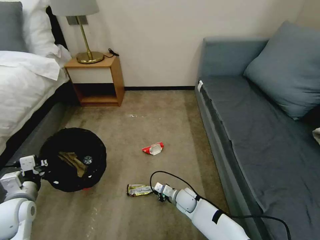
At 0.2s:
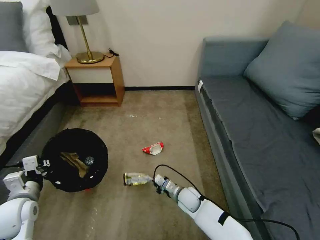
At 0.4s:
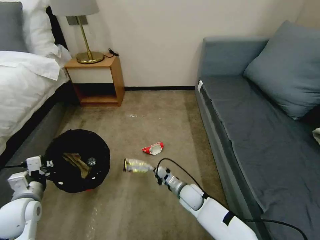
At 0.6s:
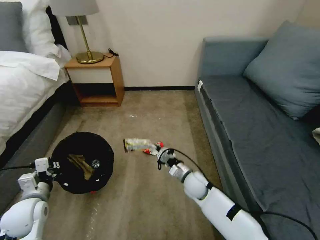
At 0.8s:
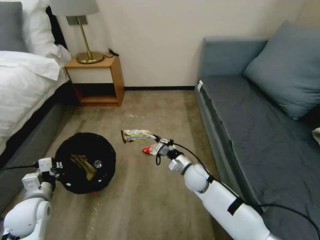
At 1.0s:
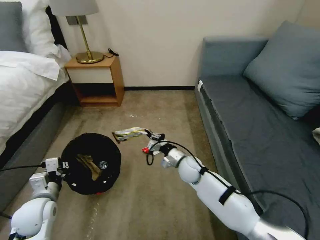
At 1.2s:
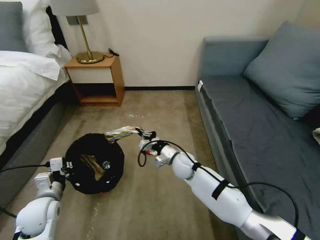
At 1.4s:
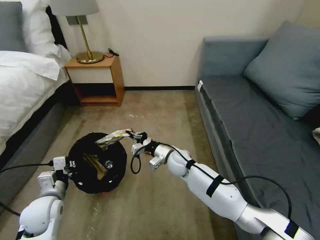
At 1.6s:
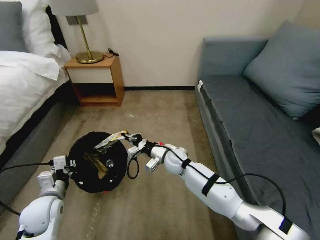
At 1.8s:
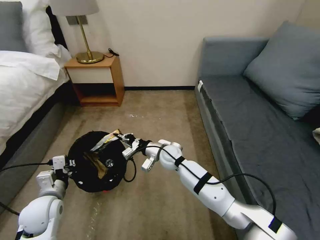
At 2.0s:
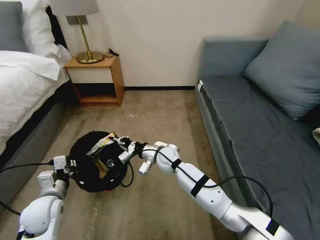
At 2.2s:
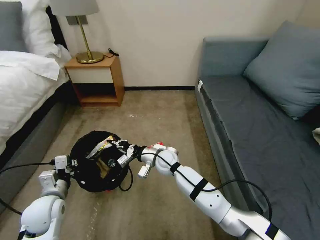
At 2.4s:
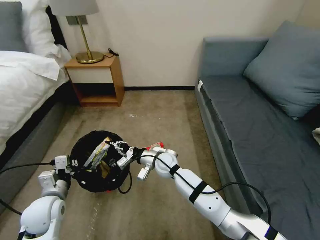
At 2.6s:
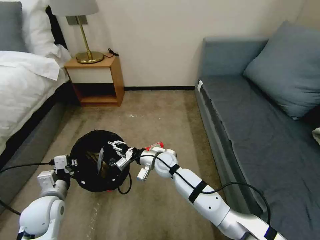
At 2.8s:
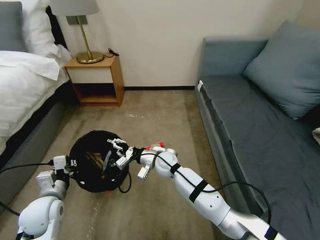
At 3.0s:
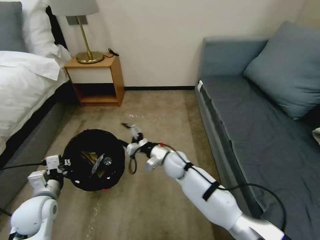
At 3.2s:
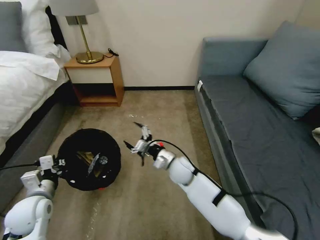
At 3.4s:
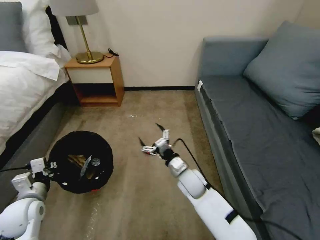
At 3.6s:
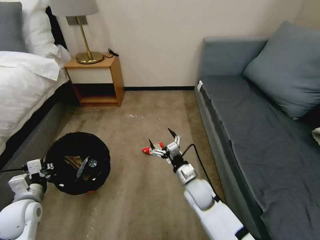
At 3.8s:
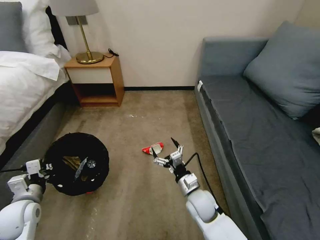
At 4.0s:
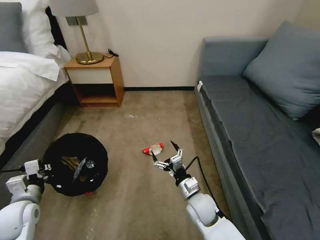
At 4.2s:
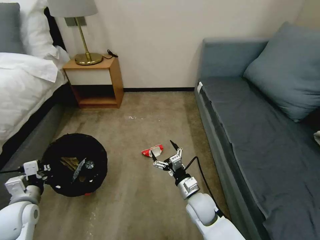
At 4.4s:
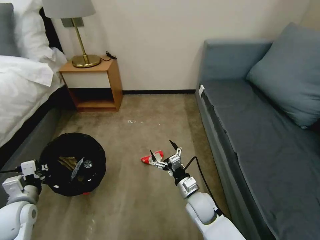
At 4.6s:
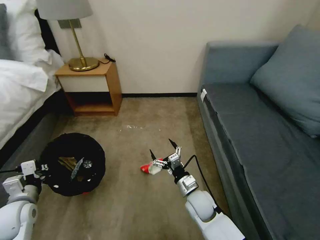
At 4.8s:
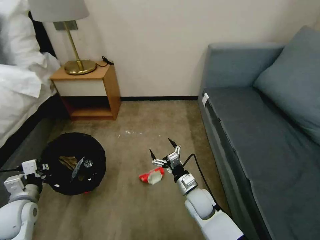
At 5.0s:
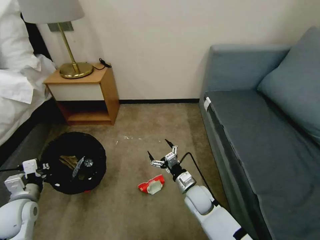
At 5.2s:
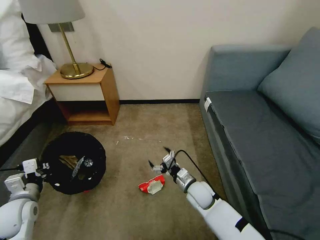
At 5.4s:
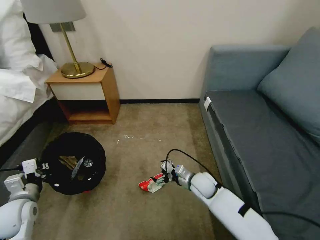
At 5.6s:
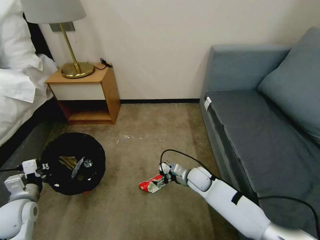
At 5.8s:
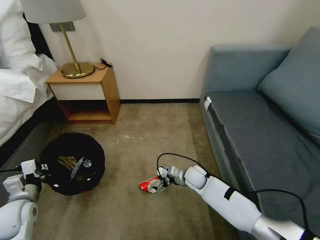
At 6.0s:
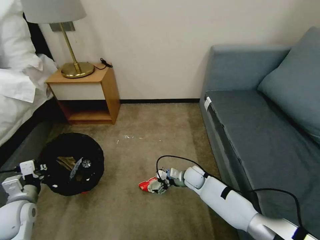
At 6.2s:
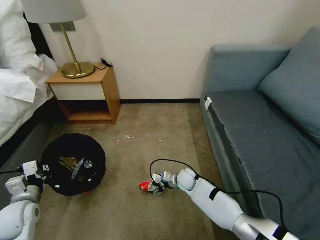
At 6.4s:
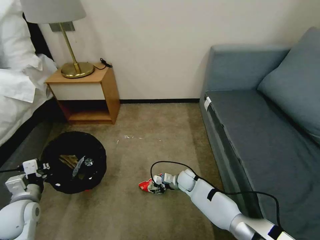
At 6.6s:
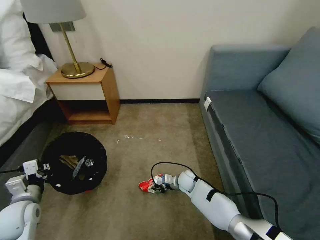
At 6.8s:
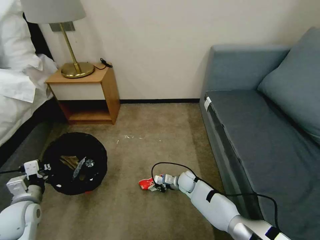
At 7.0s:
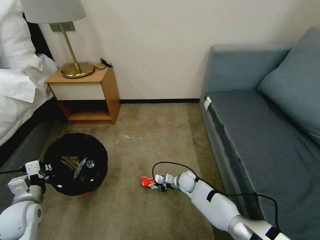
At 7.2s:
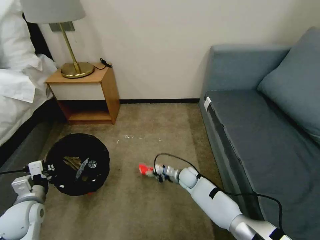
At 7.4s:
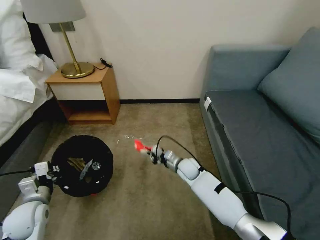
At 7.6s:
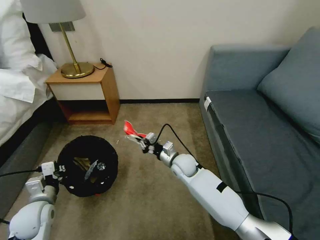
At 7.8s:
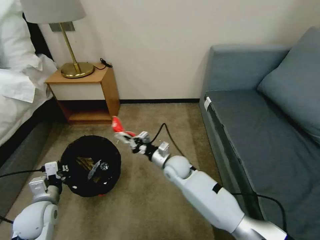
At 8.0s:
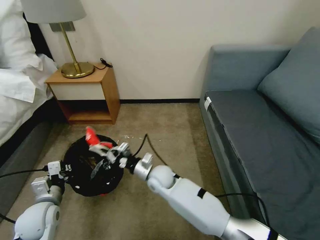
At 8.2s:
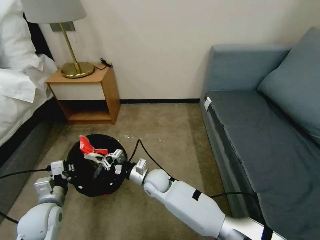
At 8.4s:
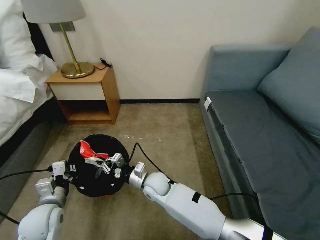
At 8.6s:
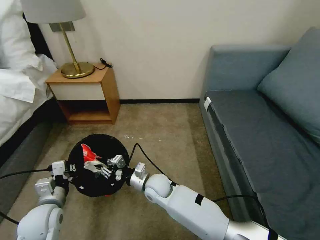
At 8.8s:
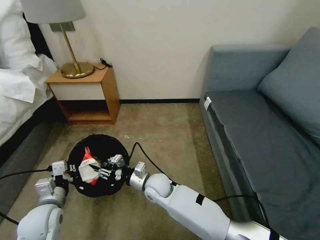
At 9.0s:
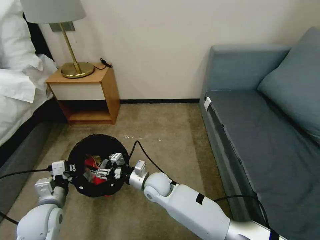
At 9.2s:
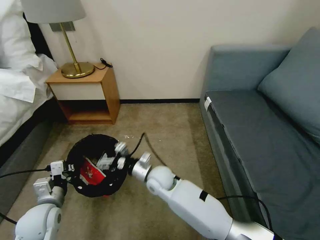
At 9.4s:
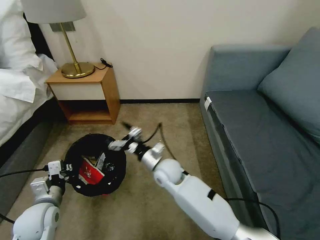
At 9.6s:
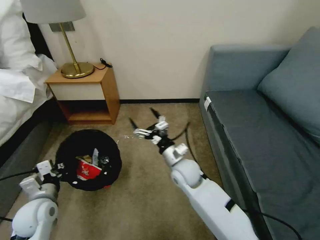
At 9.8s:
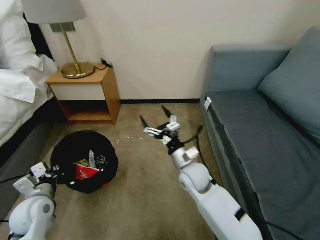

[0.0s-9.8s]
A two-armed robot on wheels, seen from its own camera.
Task of the whole recording: Pick up the trash bin, then pick up the garbage on the floor and place it into the trash bin.
0.0s to 1.4s: The left gripper heads to the right, covering roughly 5 cm. Meanwhile the right gripper is displaced upward and forward by about 20 cm.
1.4s to 2.8s: The right gripper opens.
2.8s to 4.2s: The right gripper goes some 20 cm backward, to the right and downward, and opens up; the left gripper shifts roughly 5 cm to the left.
4.2s to 5.6s: The right gripper travels forward by about 10 cm.
5.6s to 7.0s: The right gripper heads downward, covering roughly 10 cm, and closes up.
7.0s to 8.4s: The left gripper moves to the right, approximately 5 cm, while the right gripper heads to the left, upward and backward, covering about 20 cm.
8.4s to 9.8s: The right gripper moves to the right and upward, about 15 cm, and opens.

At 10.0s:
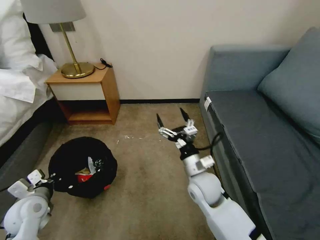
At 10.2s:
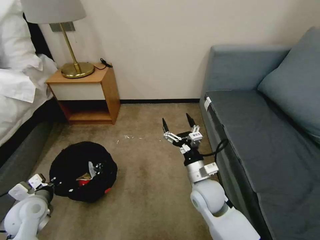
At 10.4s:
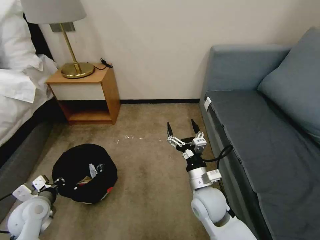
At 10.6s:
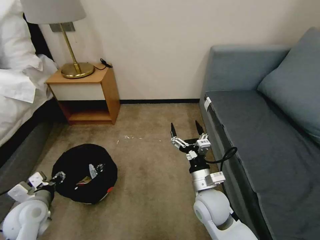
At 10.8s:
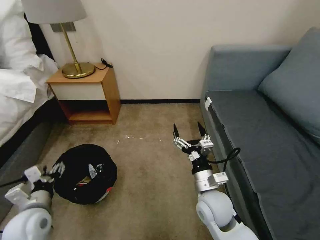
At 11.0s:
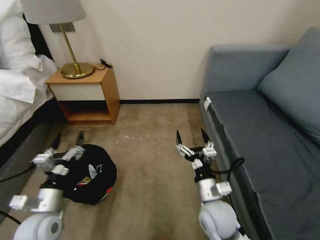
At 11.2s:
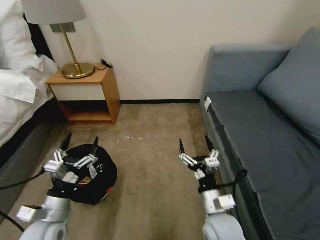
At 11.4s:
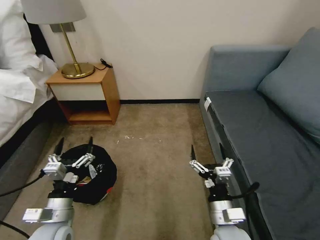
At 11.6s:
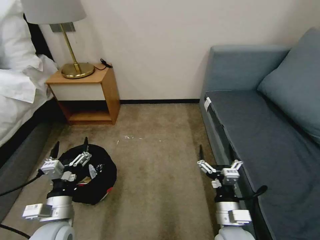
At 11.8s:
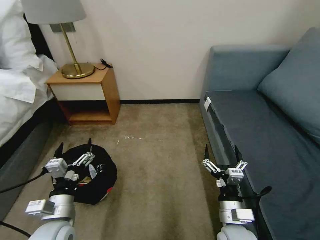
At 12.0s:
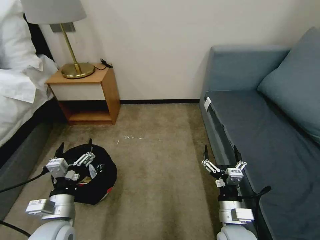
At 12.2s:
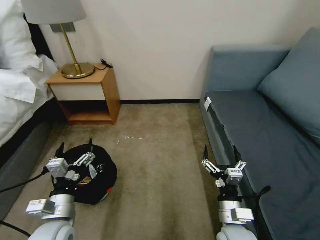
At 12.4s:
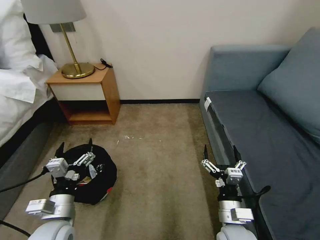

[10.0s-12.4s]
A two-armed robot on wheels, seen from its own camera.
Task of the whole recording: Pick up the trash bin, then pick up the garbage on the floor and place it into the trash bin.
10.0s to 11.2s: The left gripper goes approximately 10 cm to the right and backward, and opens; the right gripper moves backward, some 10 cm.

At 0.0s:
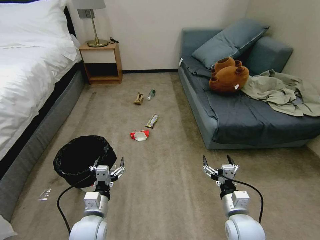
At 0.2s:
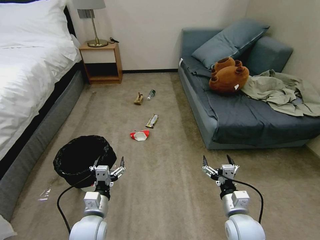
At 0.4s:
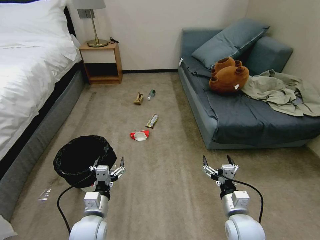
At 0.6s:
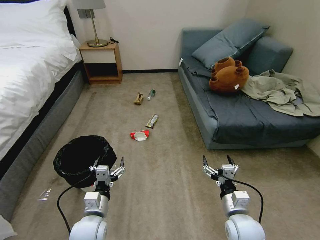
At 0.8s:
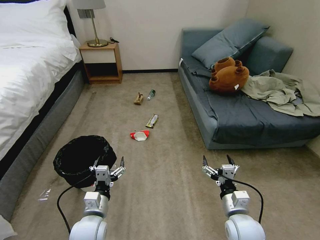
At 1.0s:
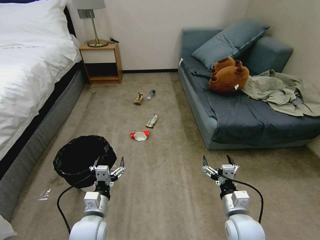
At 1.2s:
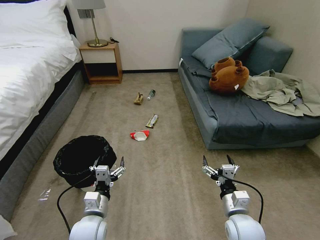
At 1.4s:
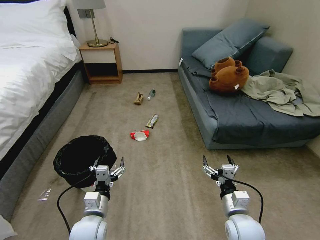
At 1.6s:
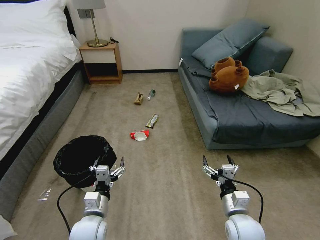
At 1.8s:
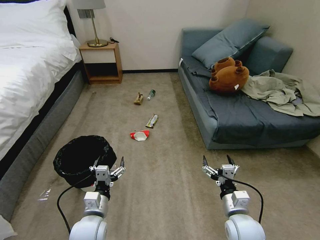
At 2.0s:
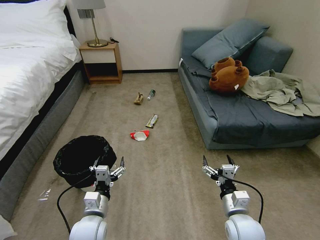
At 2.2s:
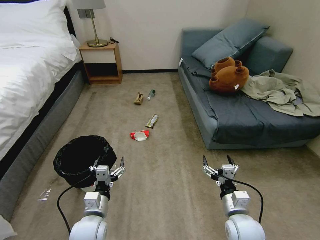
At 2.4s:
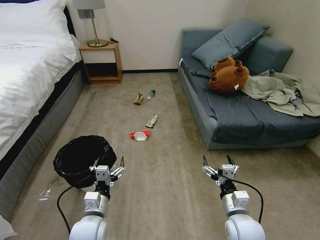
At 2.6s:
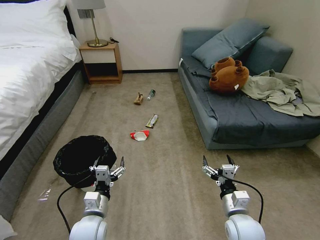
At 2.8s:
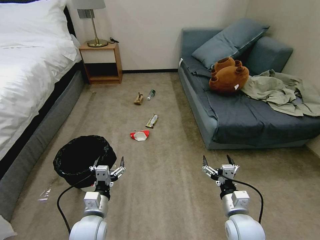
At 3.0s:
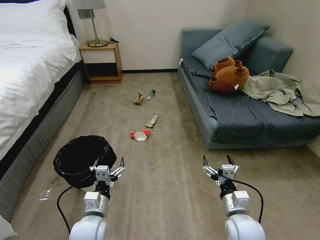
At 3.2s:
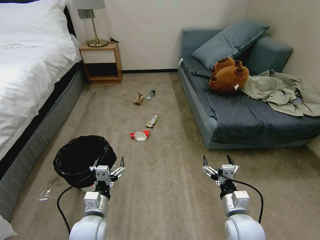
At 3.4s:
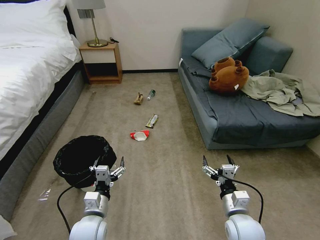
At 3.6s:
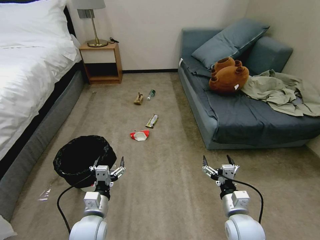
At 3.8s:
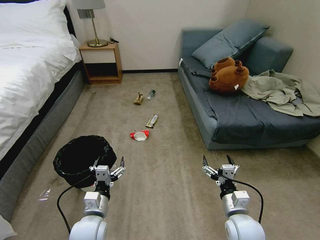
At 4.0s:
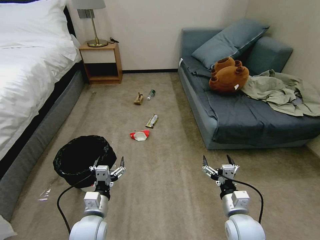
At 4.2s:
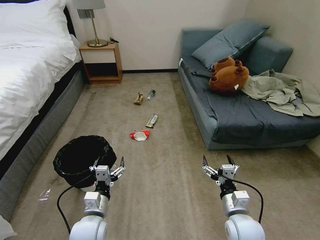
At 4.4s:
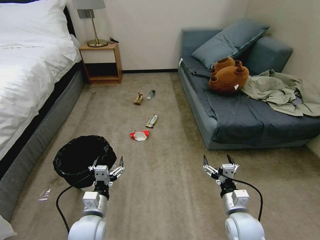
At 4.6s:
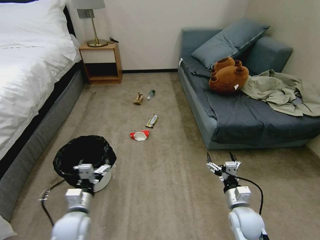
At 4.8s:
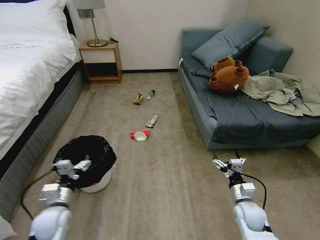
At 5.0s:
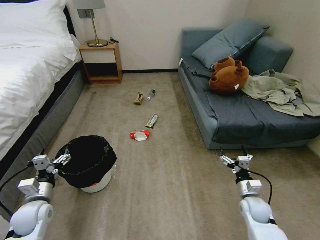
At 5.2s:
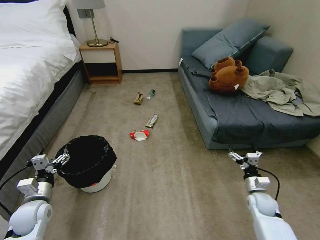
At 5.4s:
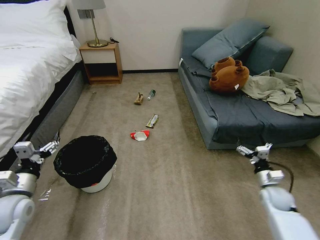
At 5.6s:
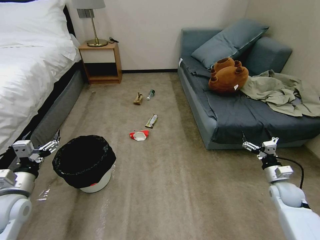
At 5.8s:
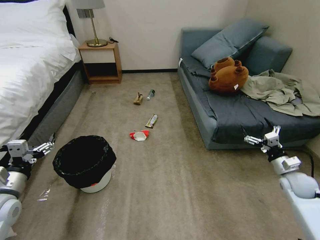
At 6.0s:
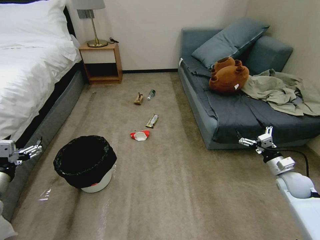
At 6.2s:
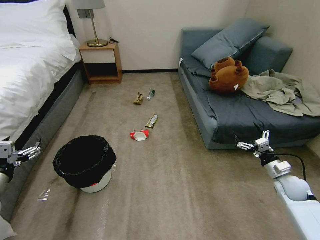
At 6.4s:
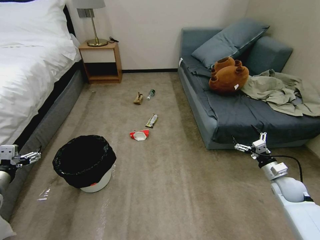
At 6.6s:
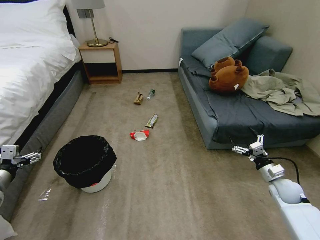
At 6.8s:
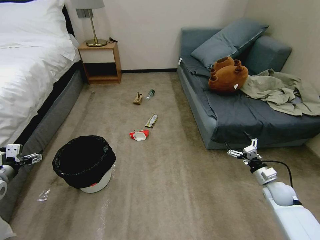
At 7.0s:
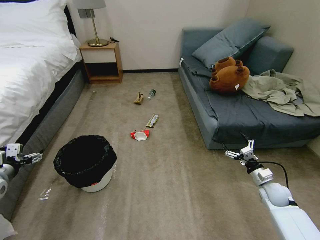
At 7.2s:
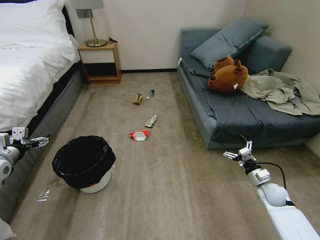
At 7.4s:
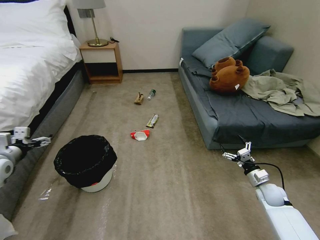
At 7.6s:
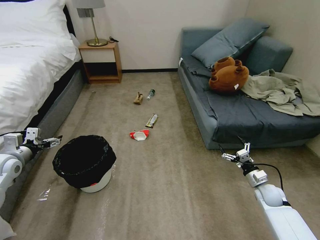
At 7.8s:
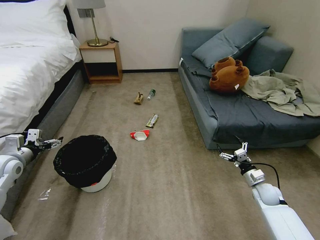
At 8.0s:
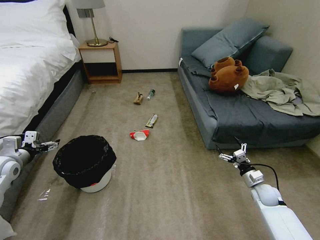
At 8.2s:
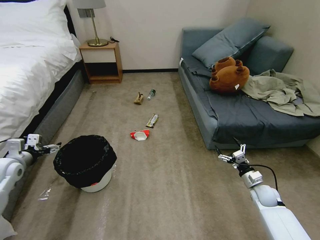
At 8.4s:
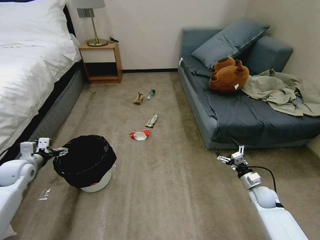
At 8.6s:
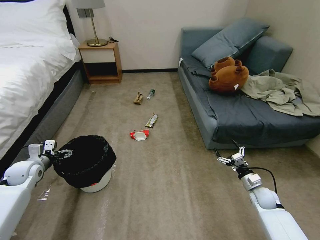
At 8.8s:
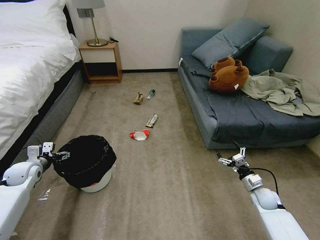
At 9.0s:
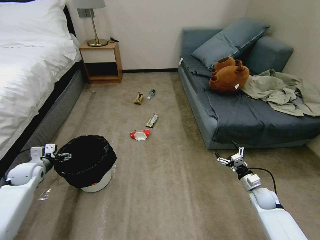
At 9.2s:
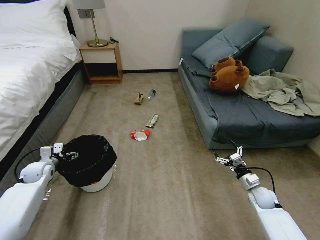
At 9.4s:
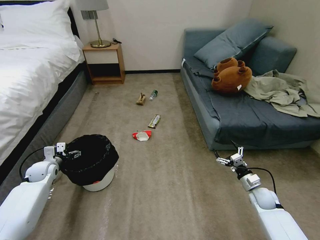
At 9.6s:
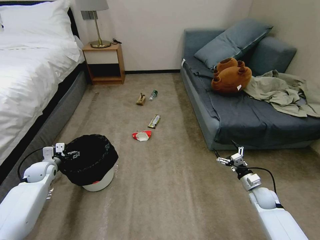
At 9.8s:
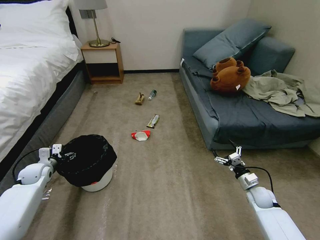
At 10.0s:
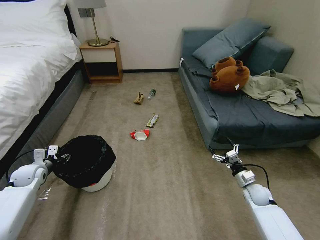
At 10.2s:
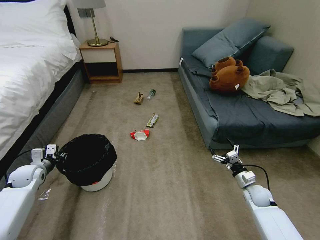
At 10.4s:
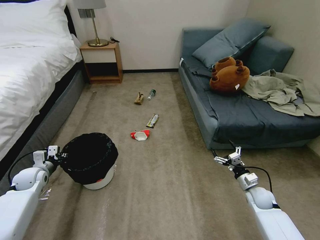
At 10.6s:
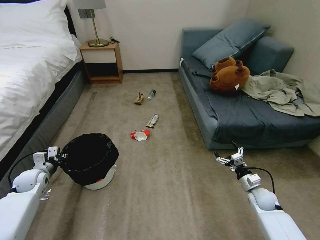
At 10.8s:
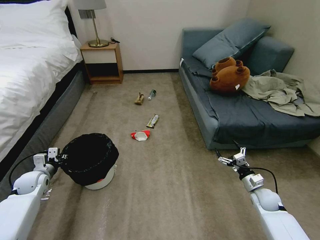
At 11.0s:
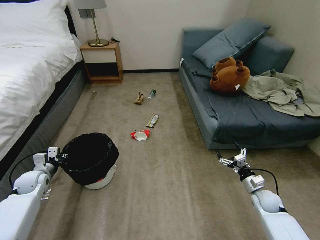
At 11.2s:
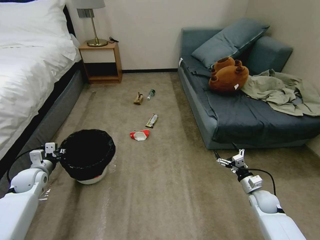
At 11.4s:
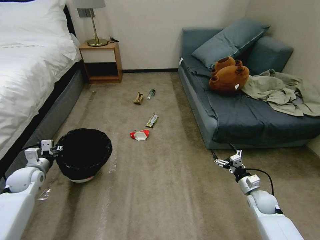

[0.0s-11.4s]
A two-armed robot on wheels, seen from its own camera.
Task of the whole recording: Pick up the trash bin, then pick up the garbage on the floor and place it into the trash bin.
1.4s to 4.2s: Both grippers stay put.
4.2s to 5.6s: The right gripper is displaced to the right and forward by approximately 25 cm; the left gripper travels to the left and upward by some 25 cm.
5.6s to 7.2s: The right gripper shifts by approximately 5 cm. Meanwhile the left gripper is displaced forward and to the left by approximately 15 cm.
7.2s to 8.6s: The left gripper heads downward, covering roughly 10 cm.
8.6s to 10.0s: The left gripper closes.
10.0s to 11.4s: The left gripper closes its fingers.
